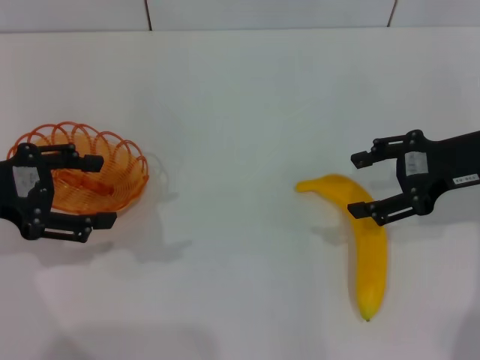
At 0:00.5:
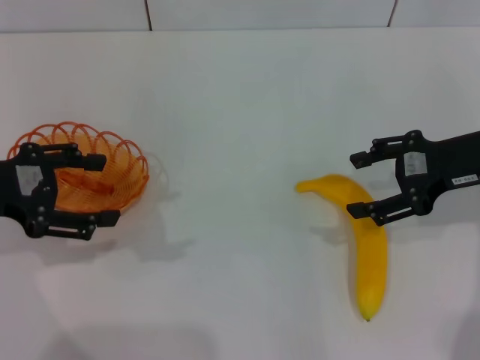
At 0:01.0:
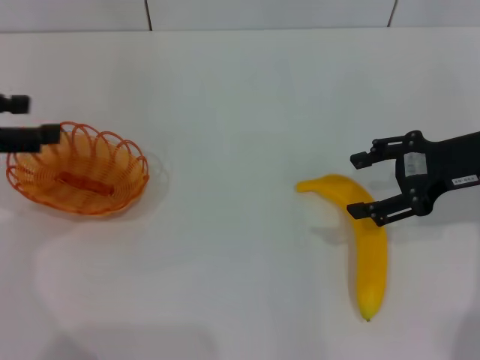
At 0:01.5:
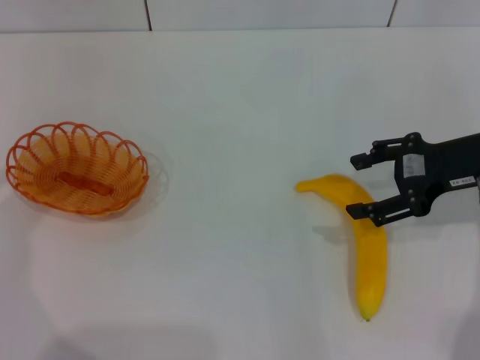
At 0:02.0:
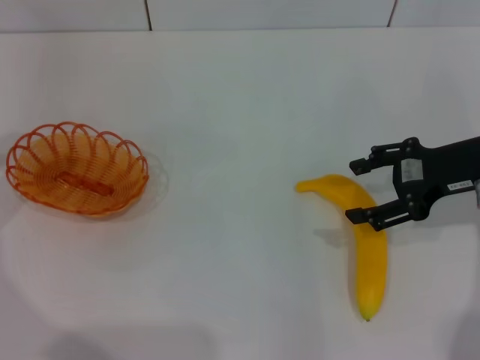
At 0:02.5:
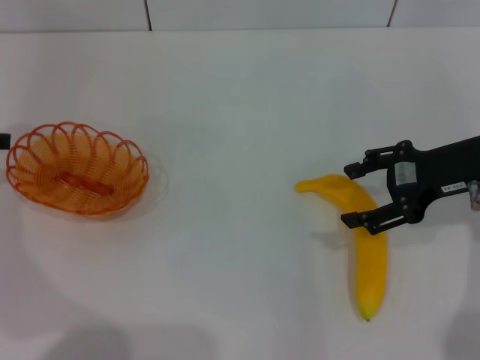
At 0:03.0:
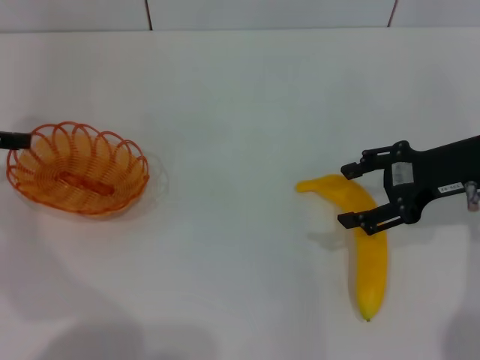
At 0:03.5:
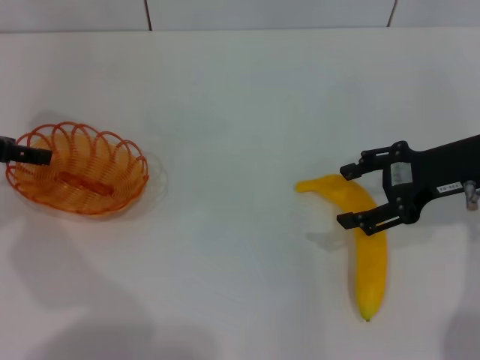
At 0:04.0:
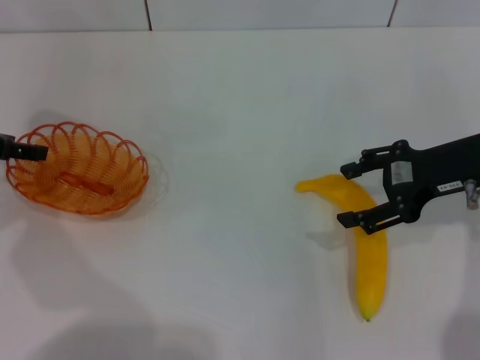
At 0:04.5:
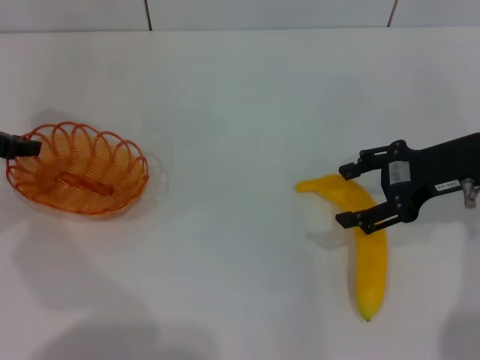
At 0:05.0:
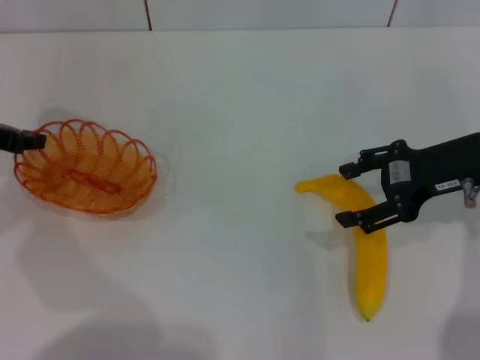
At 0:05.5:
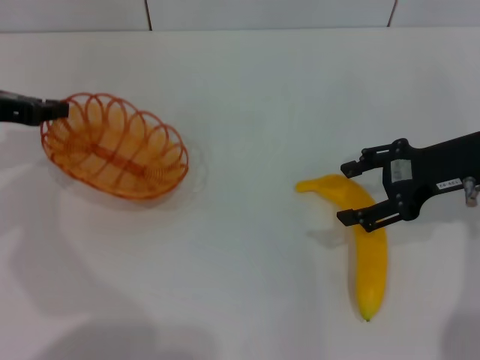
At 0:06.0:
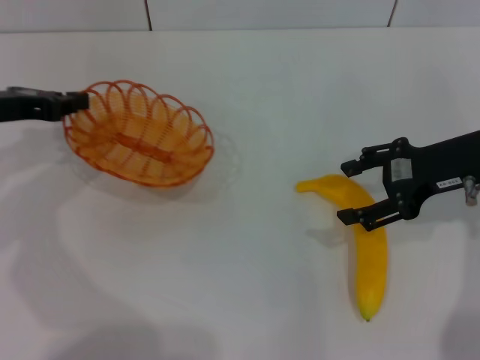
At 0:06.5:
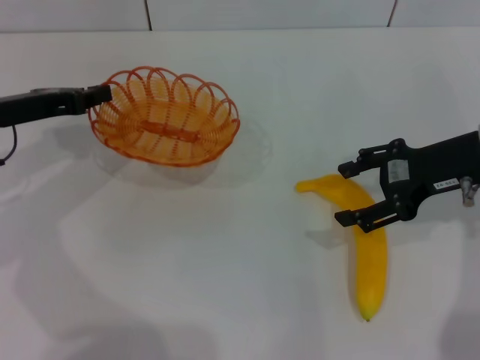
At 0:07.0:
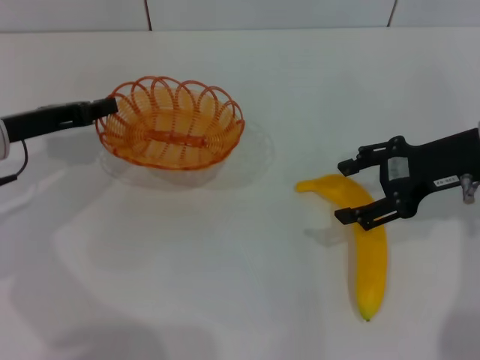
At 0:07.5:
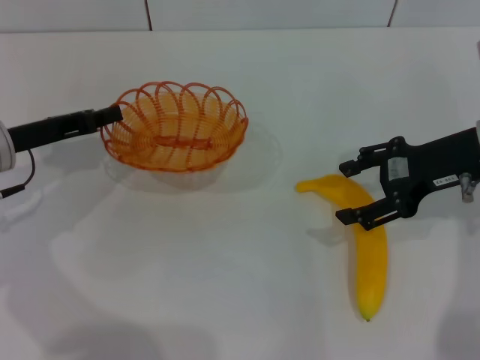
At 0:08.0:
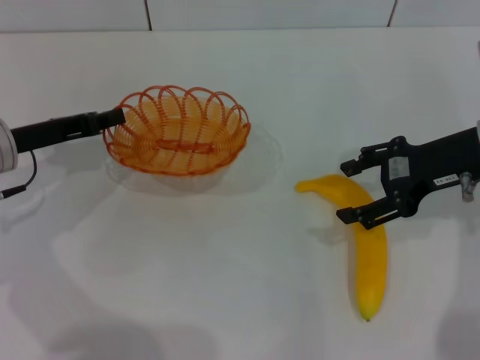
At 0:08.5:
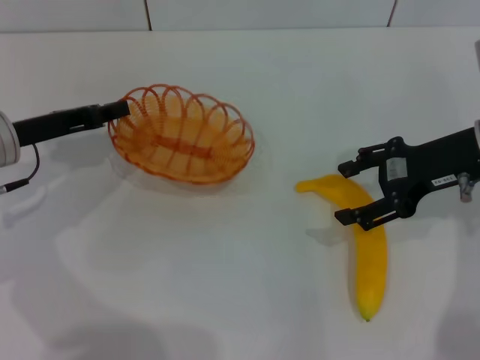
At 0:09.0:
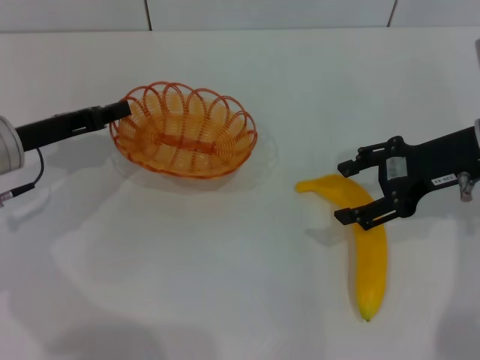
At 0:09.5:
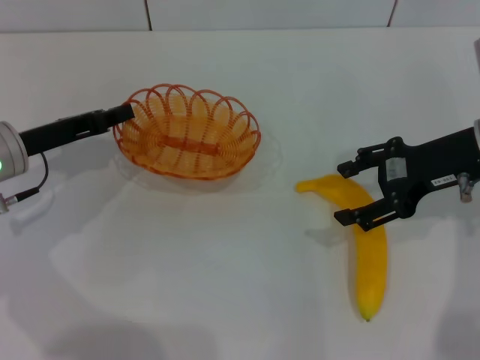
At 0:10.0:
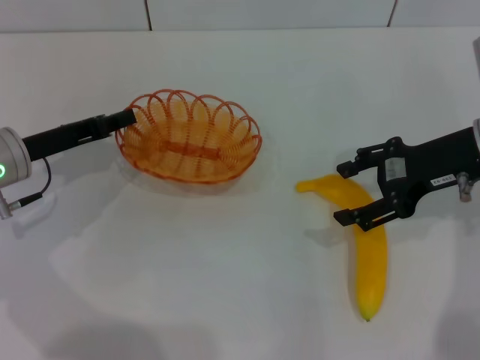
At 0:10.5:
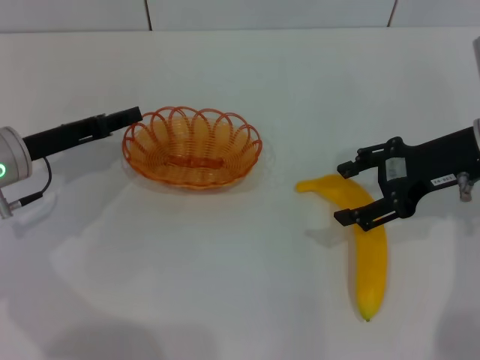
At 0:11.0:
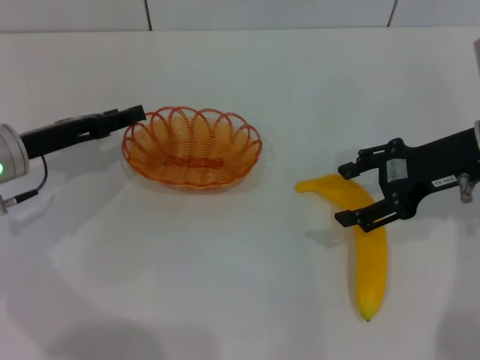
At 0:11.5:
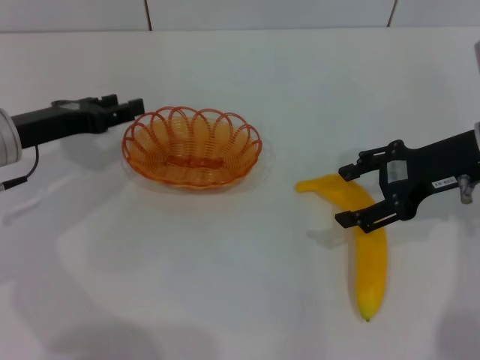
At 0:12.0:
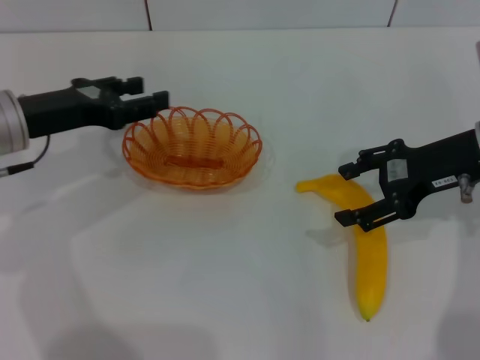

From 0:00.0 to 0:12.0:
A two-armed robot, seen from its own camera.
Step, from 0:00.0 to 0:05.0: Pick up the basket with the left gripper.
Step, from 0:06.0 to 0:10.5: Place the basket in the center of view with the left gripper.
From 0:00.0 to 0:02.0: The left gripper heads to the left, covering about 10 cm.
From 0:04.0 to 0:06.0: The left gripper closes its fingers.
From 0:06.0 to 0:08.0: The left gripper changes place by about 5 cm.
From 0:08.0 to 0:10.0: The grippers make only small movements.
From 0:10.0 to 0:12.0: The left gripper is displaced upward by roughly 5 cm, and opens.

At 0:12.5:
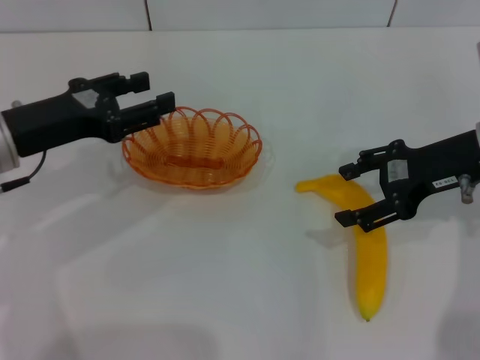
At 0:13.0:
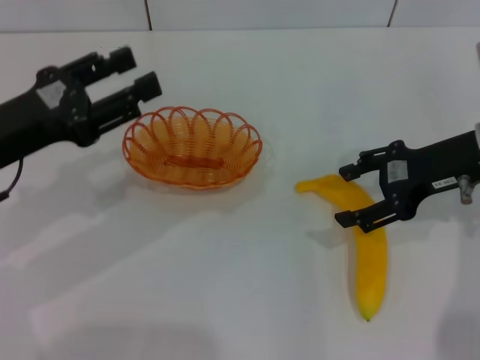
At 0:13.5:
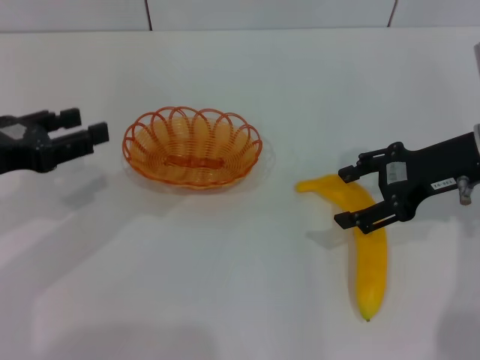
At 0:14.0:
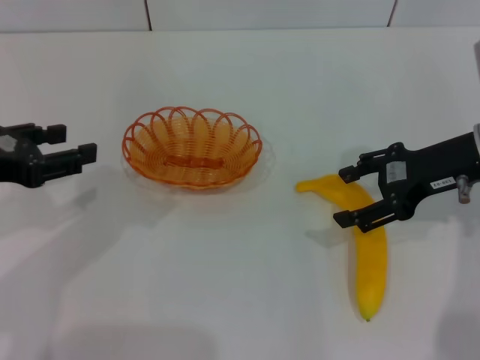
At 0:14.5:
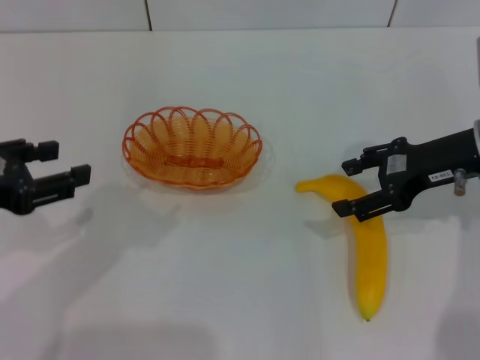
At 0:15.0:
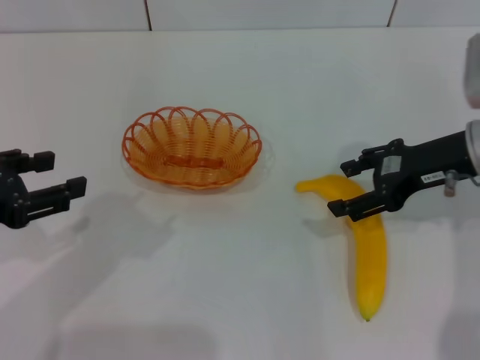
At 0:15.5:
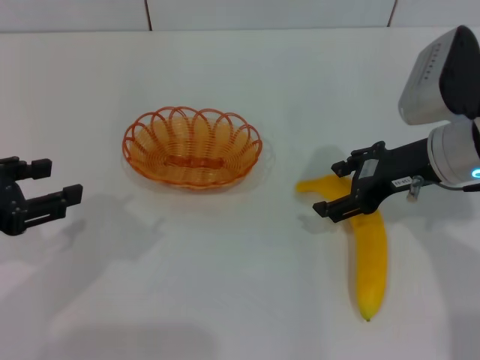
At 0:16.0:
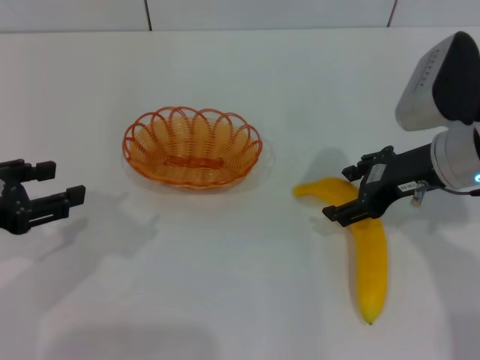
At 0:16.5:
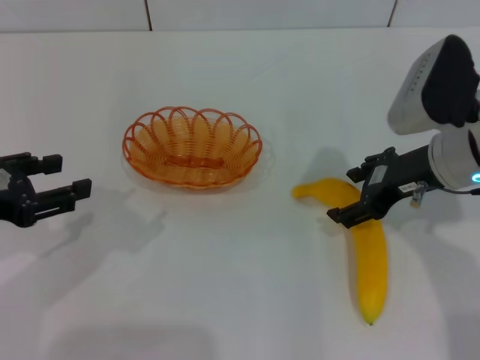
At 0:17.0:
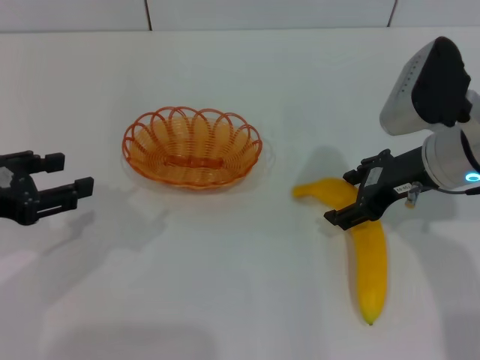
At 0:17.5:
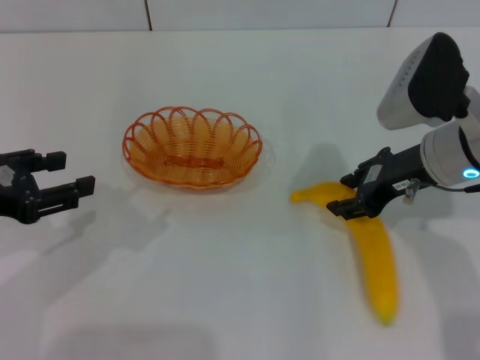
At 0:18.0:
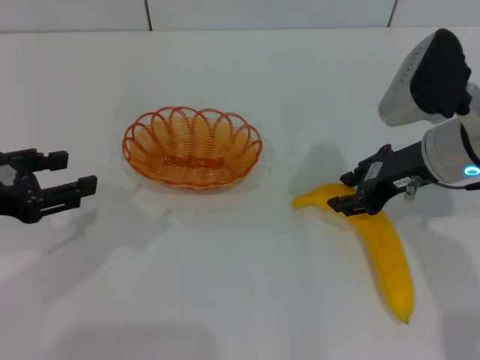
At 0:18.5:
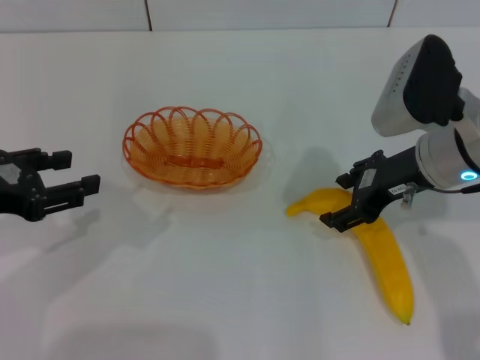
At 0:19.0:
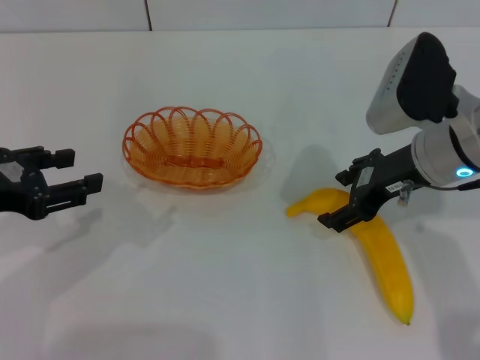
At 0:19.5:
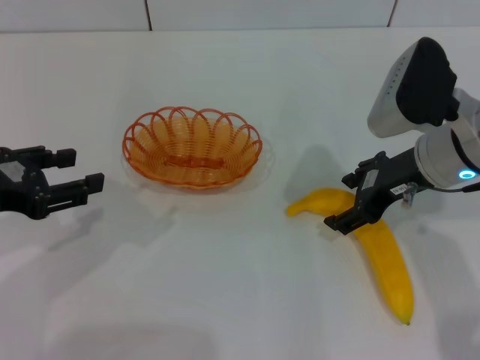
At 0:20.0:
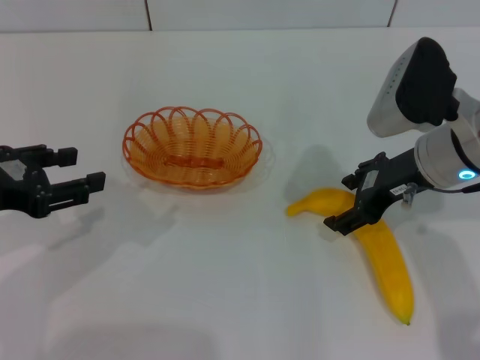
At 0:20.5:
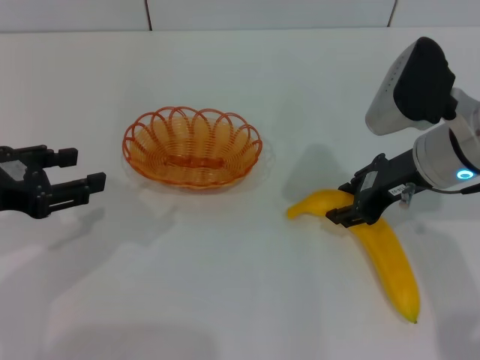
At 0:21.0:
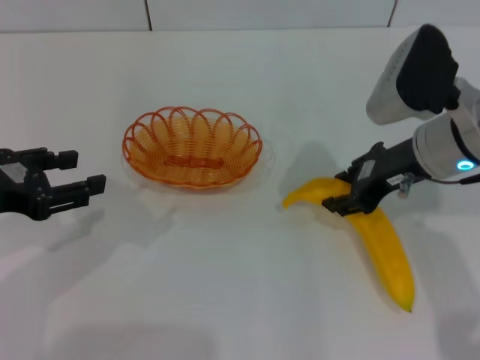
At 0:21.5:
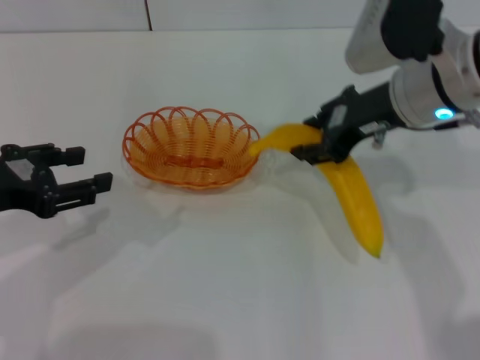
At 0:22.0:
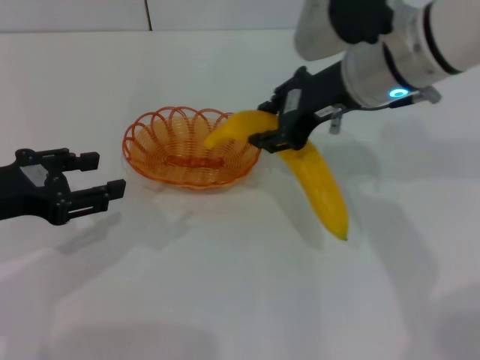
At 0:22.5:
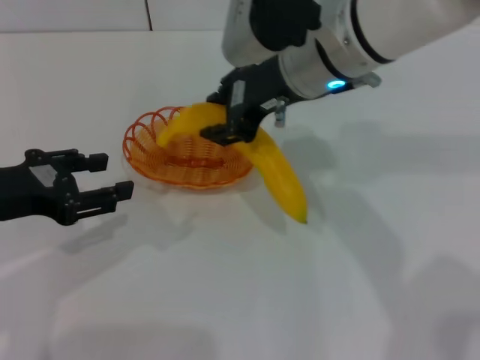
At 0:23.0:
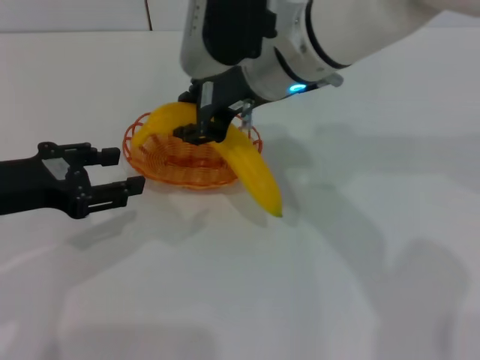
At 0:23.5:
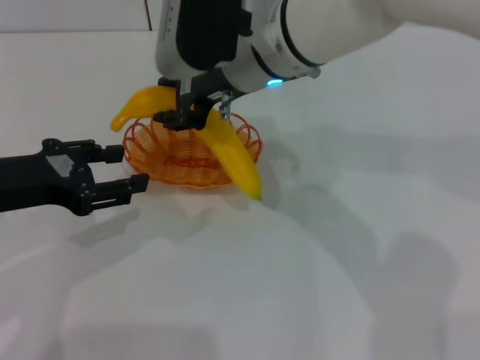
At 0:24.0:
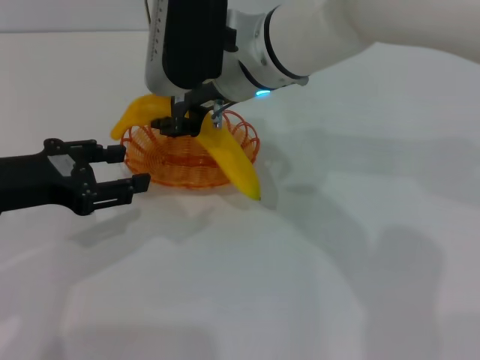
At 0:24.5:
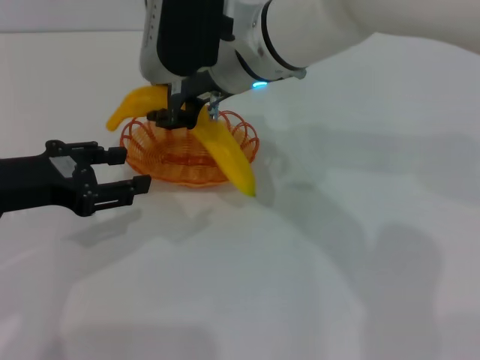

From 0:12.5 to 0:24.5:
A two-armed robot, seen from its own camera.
Step, from 0:12.5 to 0:21.0: Pick up the banana with the right gripper.
From 0:12.5 to 0:14.5: The left gripper moves backward, some 10 cm.
From 0:14.5 to 0:16.5: The grippers move only a little.
From 0:16.5 to 0:18.5: The right gripper closes its fingers.
From 0:18.5 to 0:20.5: The right gripper opens and closes again.
From 0:20.5 to 0:22.5: The right gripper travels to the left and upward by about 15 cm, and closes.
From 0:22.5 to 0:24.5: The right gripper heads to the left, covering some 5 cm.

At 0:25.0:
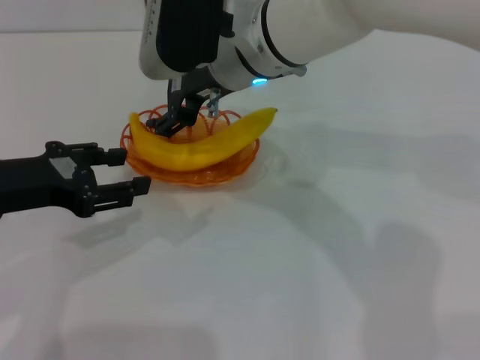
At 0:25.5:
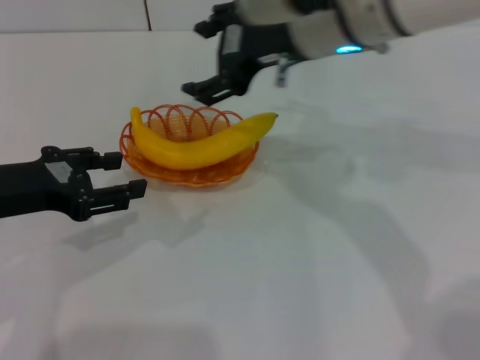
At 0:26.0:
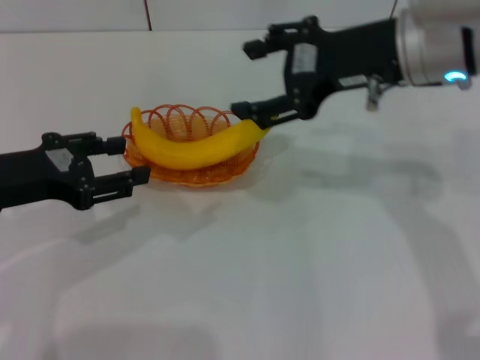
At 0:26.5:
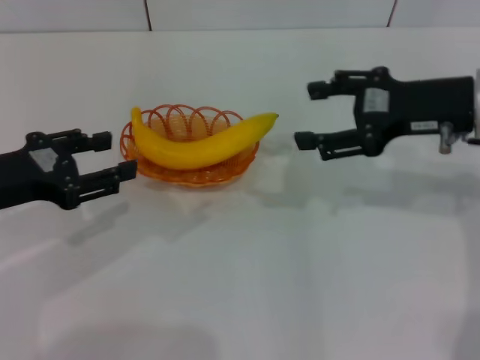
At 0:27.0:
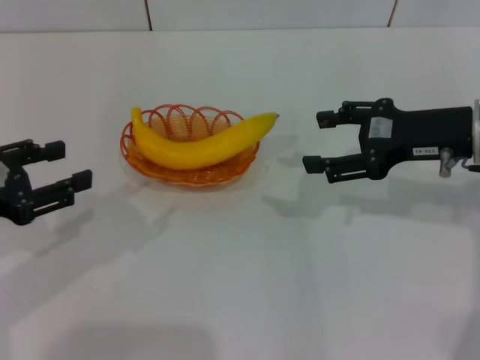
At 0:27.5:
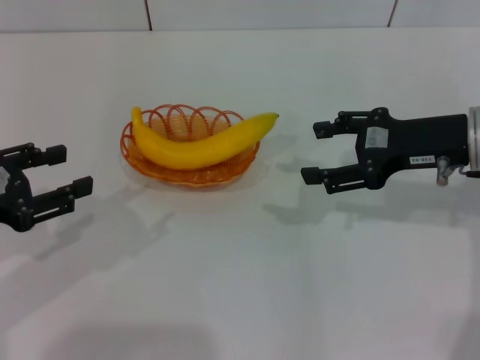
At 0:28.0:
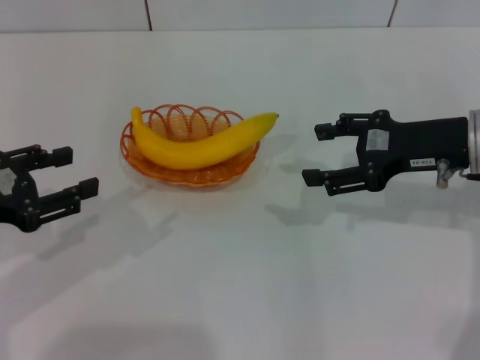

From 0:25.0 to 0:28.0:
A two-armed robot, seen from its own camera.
From 0:25.0 to 0:26.5: The right gripper moves to the right, approximately 20 cm.
From 0:26.5 to 0:28.0: There are only small adjustments of the grippers.
